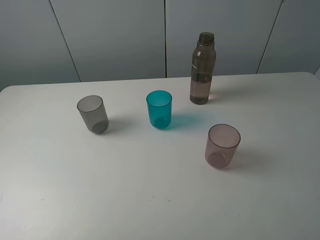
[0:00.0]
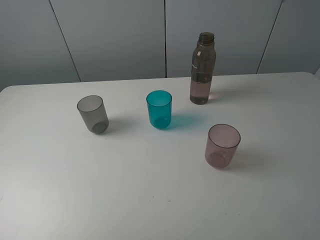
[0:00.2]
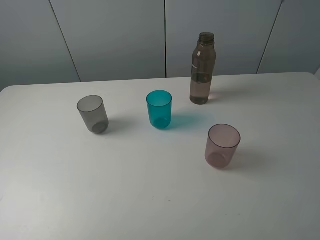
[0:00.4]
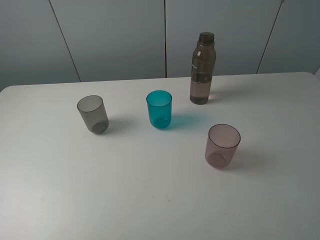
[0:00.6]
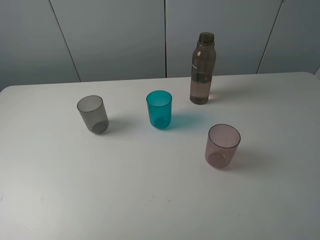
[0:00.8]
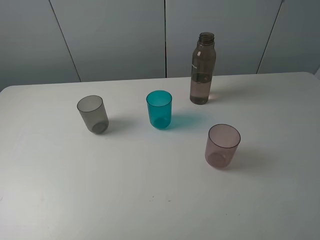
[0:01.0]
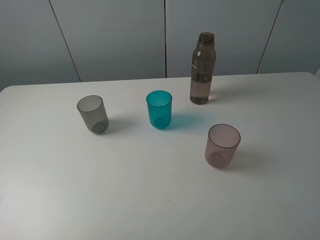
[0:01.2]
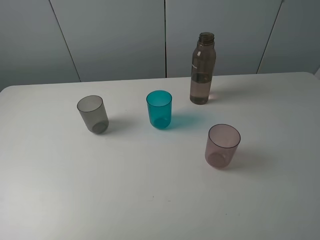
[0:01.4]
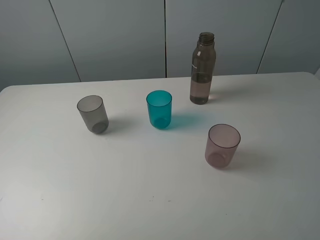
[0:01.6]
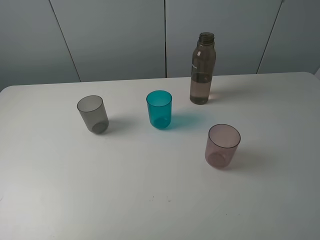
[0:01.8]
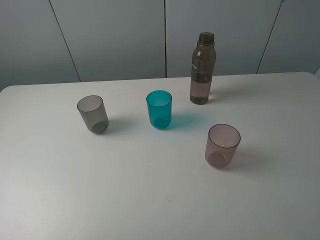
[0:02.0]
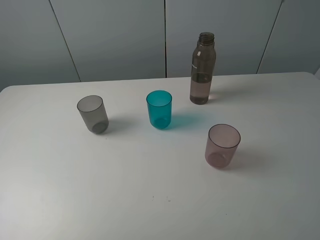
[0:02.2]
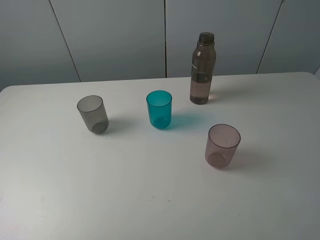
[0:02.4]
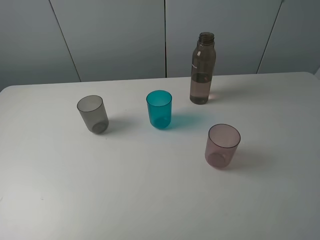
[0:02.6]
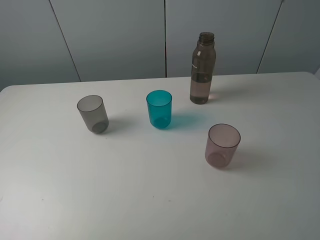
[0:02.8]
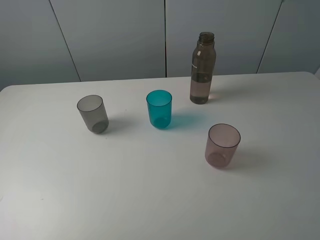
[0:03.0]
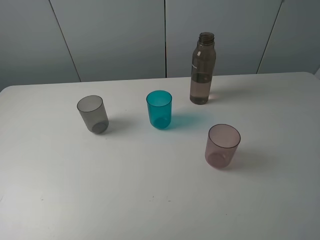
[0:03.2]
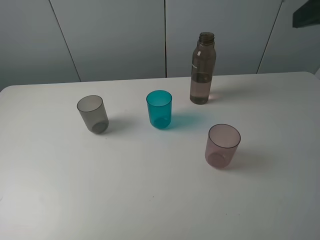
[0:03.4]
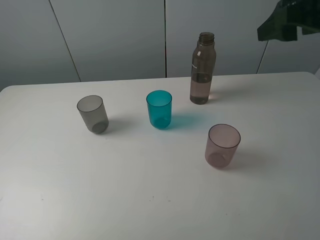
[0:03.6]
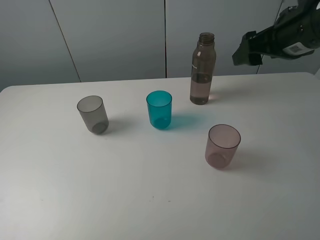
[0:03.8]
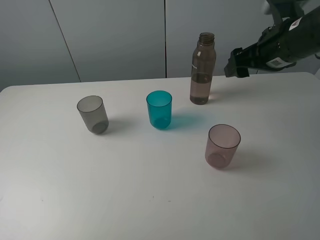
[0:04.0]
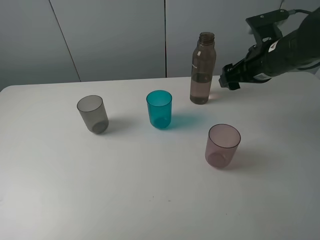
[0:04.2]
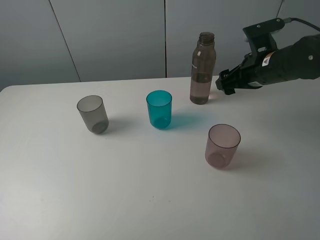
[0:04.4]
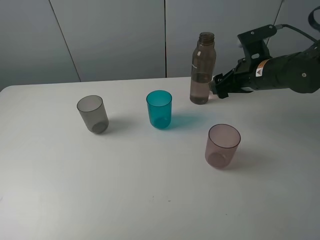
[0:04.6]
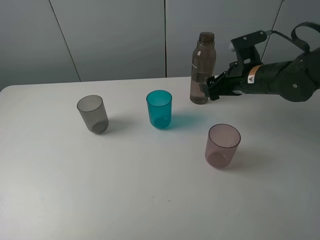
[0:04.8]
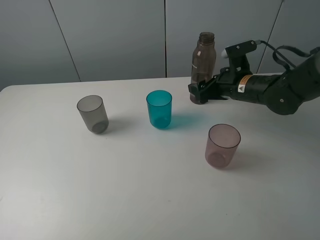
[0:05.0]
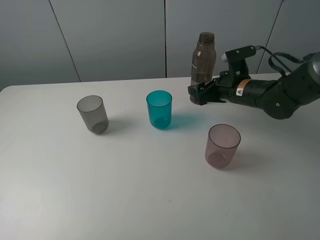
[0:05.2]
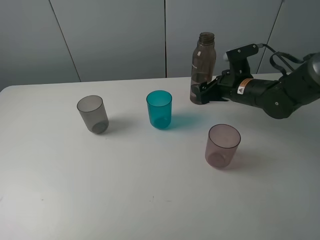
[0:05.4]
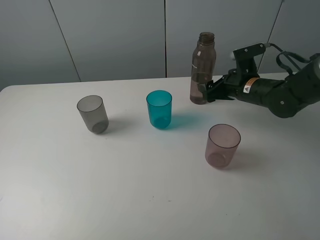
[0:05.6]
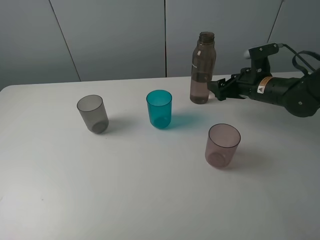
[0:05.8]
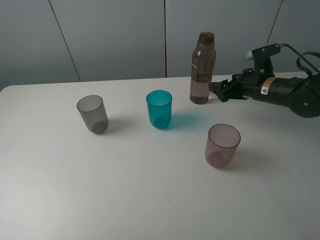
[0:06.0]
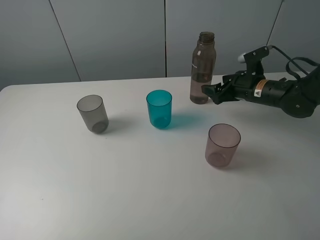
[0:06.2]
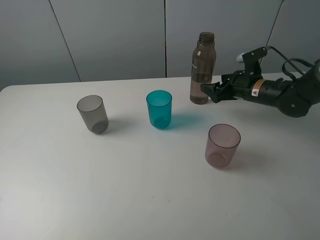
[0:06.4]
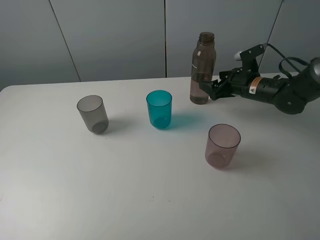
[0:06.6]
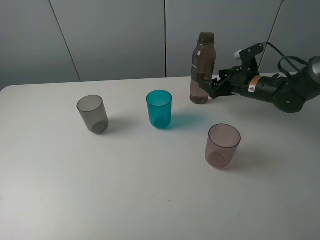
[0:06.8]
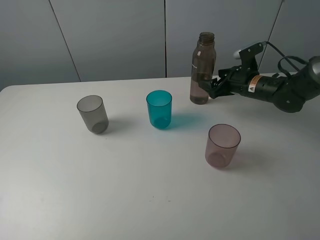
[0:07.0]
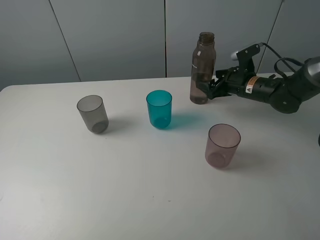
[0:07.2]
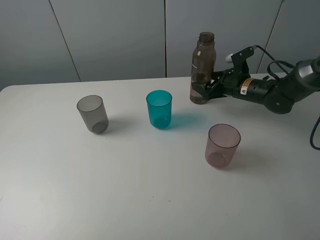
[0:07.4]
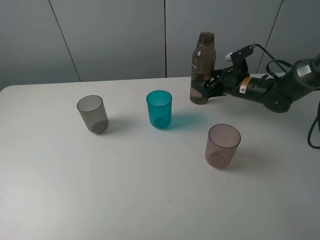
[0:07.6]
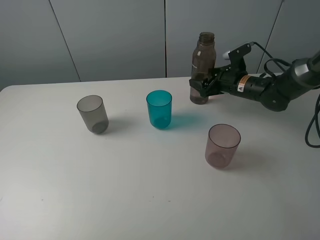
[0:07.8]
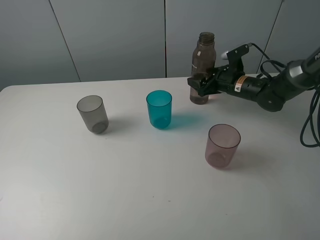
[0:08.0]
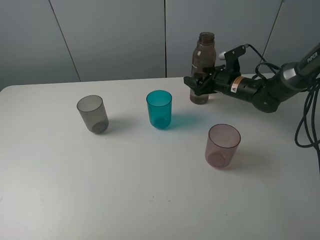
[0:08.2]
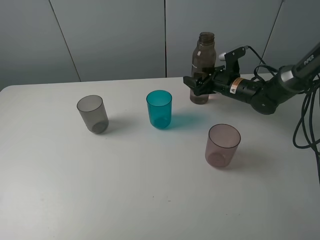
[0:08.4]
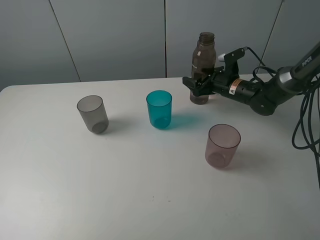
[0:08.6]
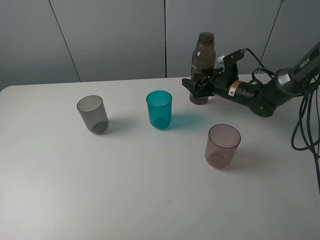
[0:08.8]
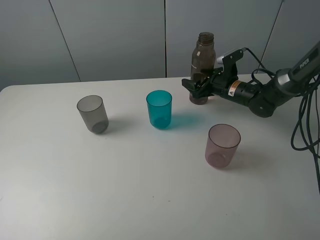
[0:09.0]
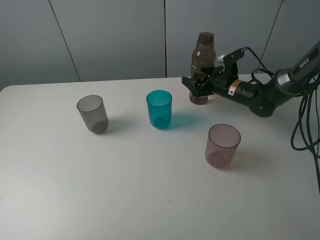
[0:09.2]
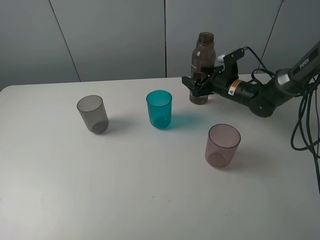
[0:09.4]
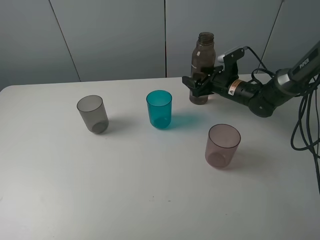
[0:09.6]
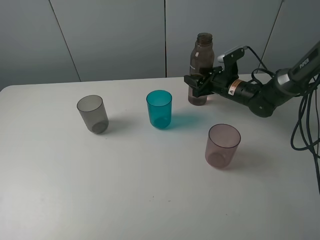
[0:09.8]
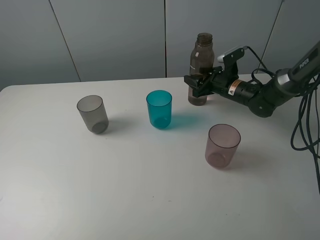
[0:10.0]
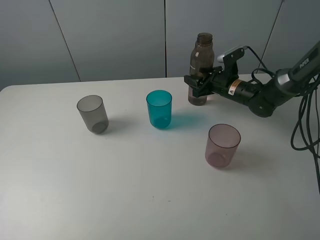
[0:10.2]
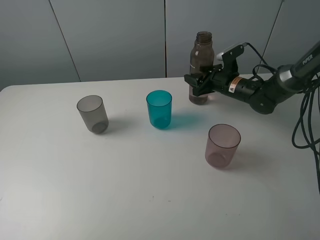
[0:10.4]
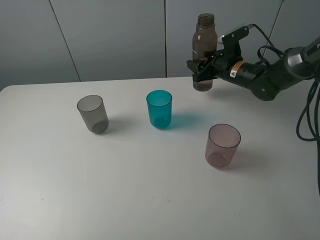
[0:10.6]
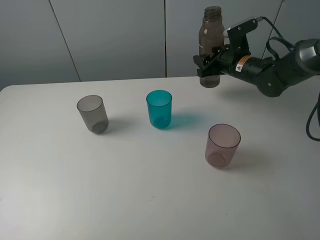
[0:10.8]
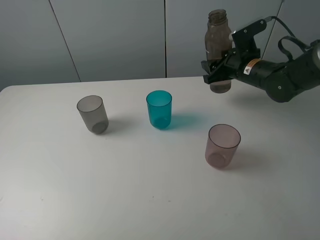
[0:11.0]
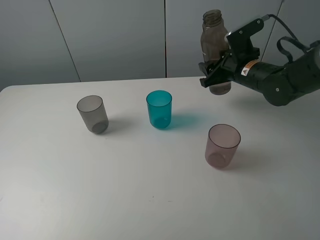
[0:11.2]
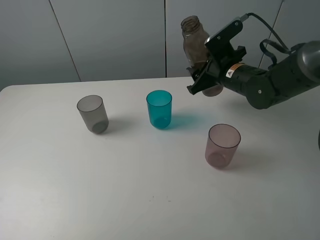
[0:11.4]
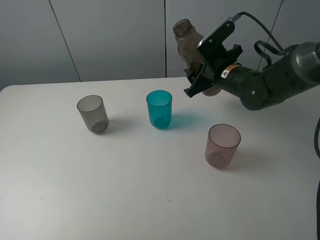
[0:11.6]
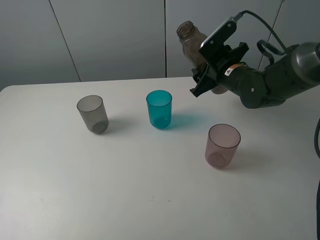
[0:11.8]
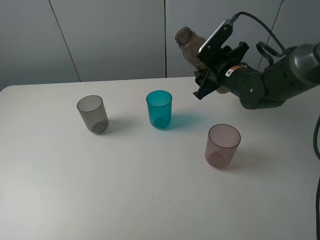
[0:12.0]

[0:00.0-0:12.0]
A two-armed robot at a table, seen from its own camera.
Task of the whole recording: pick up the bottle filled with water and pour water into the middle cup of the three cups.
Step, 0:00.0 to 0:10.0: Grasp the brown bottle with the right gripper.
0:00.0 to 0:01.6: Both grippers stay about where they are.
0:03.0 to 0:04.4: The right gripper goes some 30 cm forward and downward.
0:04.4 to 0:06.0: The right gripper heads downward, covering approximately 5 cm.
0:06.0 to 0:07.6: The right gripper heads forward, covering about 5 cm.
0:07.6 to 0:09.0: There are only small adjustments of the grippers.
0:09.0 to 0:10.4: The right gripper closes up.
0:10.4 to 0:12.0: The right gripper moves backward and upward, roughly 10 cm.

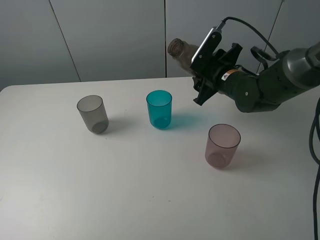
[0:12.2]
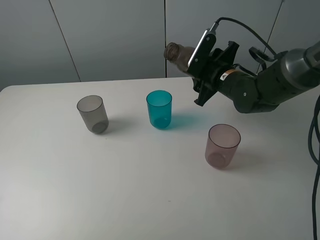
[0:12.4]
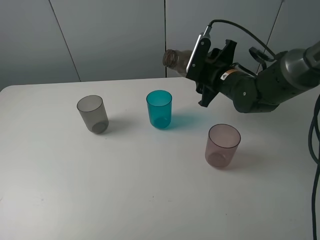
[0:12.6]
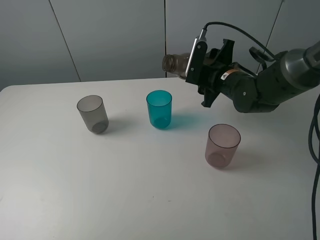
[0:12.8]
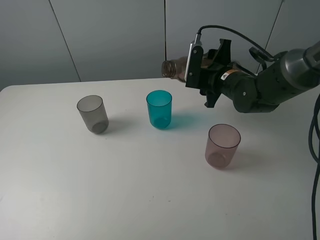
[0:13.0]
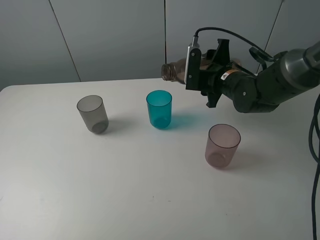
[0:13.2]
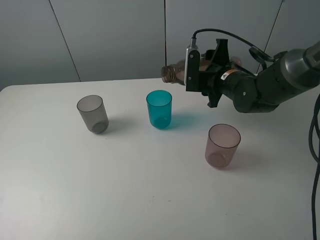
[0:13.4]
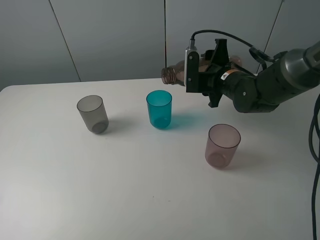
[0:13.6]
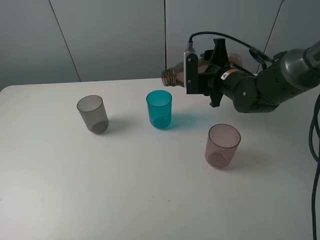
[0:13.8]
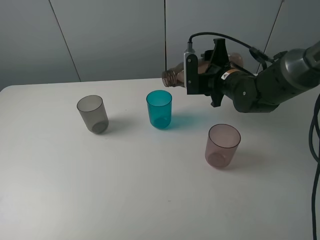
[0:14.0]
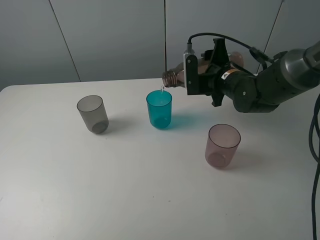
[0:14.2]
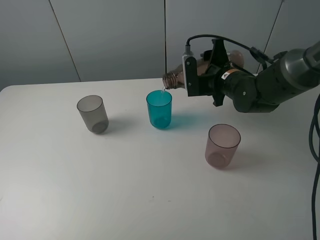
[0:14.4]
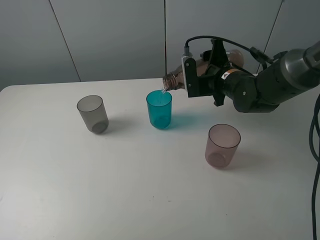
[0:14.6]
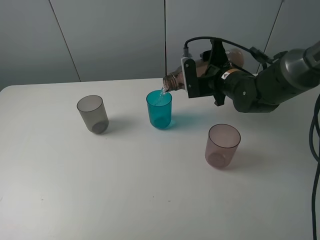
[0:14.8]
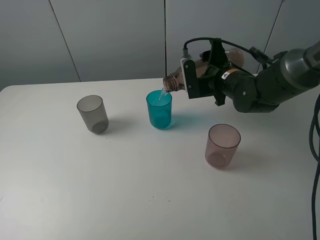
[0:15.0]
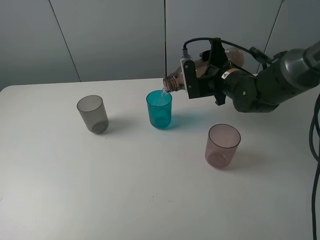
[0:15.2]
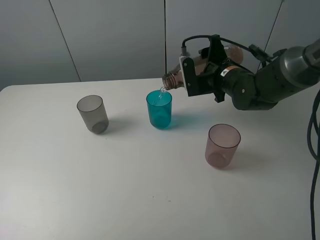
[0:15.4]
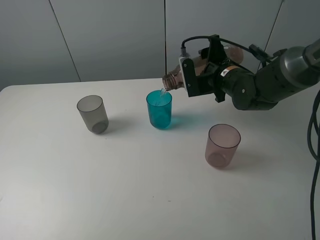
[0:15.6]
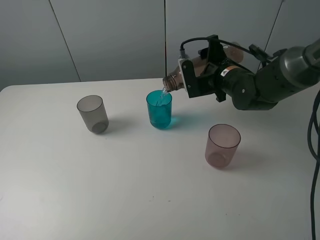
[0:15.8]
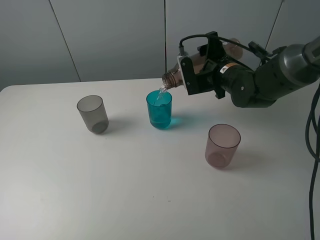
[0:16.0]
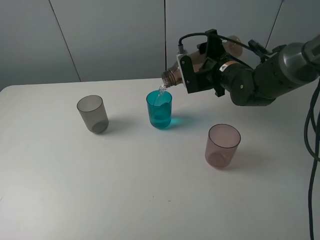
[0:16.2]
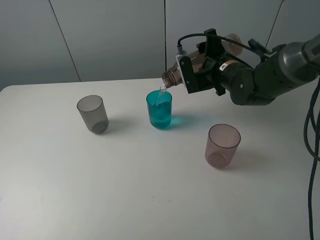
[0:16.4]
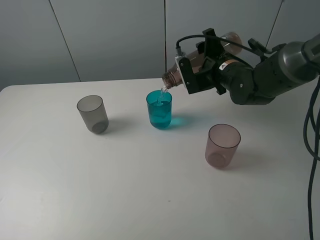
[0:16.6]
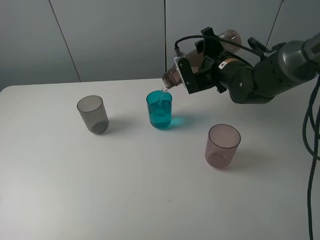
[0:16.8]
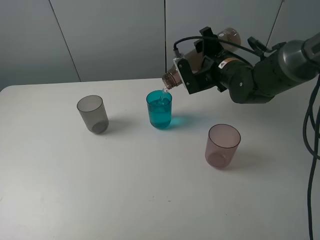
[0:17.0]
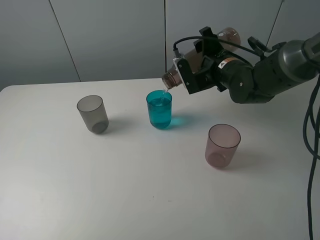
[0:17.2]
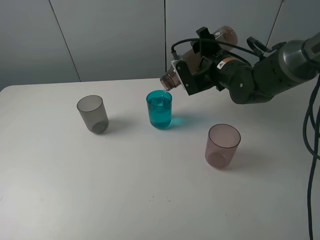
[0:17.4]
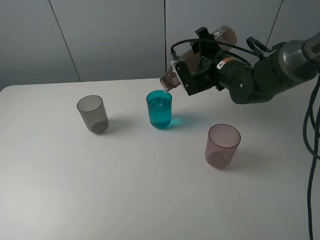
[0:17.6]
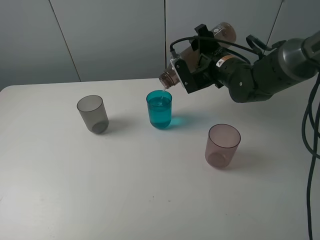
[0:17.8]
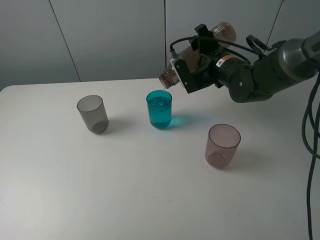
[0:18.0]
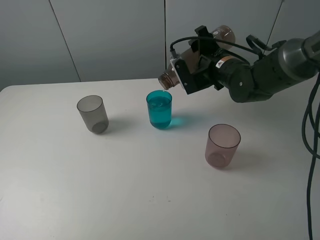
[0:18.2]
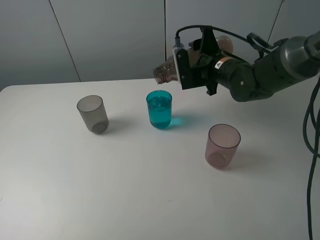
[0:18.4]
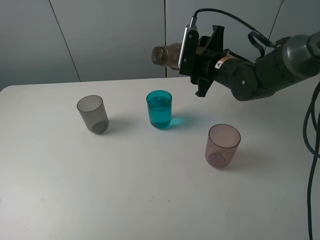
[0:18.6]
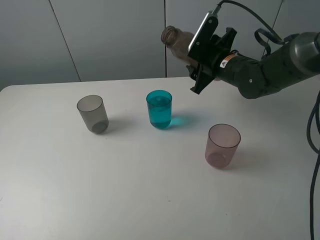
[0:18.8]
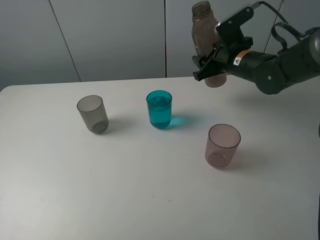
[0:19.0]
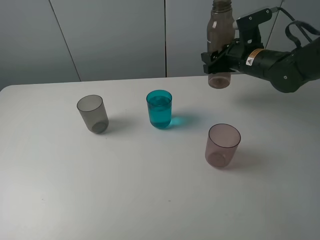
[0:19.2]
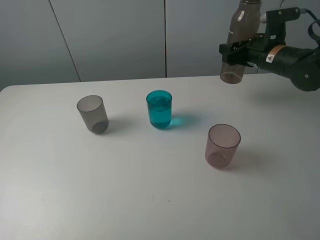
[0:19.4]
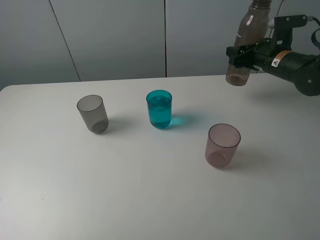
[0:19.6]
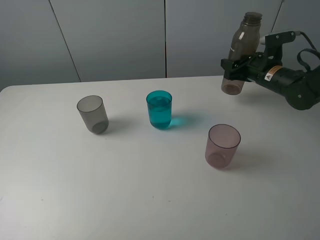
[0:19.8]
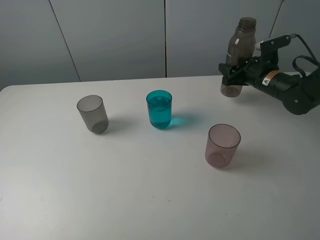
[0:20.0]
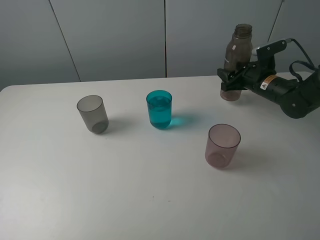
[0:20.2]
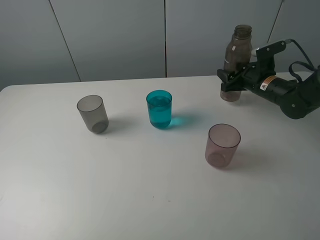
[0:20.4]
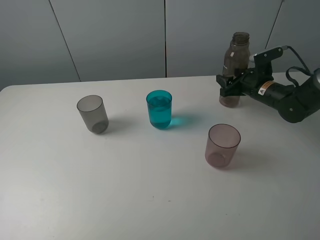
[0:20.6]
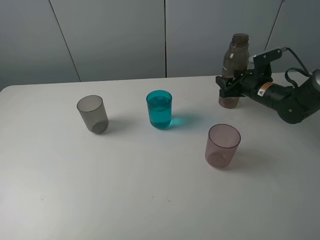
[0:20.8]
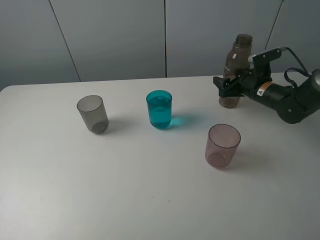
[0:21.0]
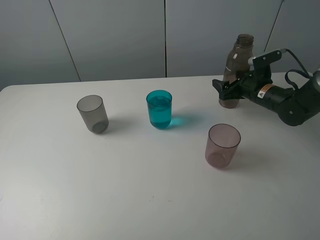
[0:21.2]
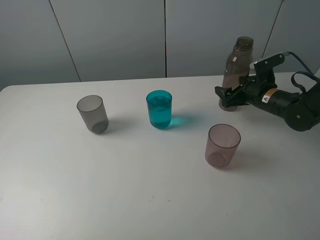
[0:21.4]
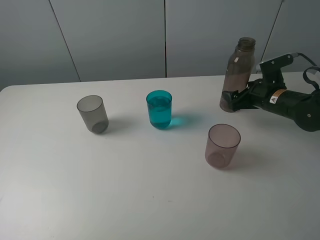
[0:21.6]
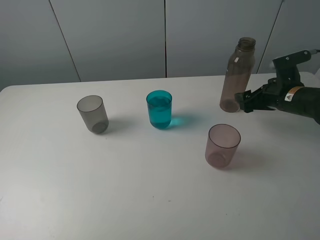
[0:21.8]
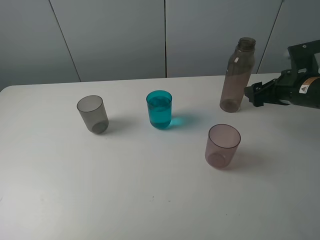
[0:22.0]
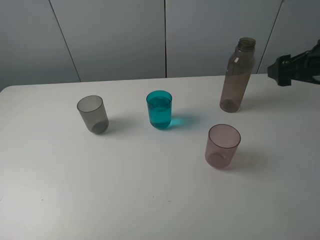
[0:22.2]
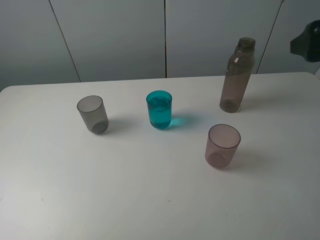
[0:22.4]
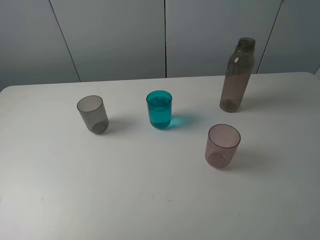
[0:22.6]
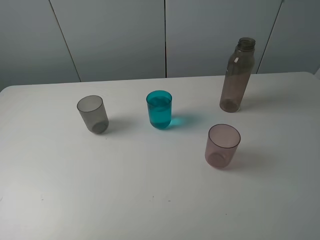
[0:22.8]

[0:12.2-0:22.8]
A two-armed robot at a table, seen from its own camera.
Task of the whole recording: pick up the bottle filled with water and pour water into the middle cup of the three cups.
Step, 0:12.2 to 0:18.8: Pour water from brown bottle to blue cup with the right gripper.
Step, 0:19.0 to 0:22.0: Place the brown bottle with the right gripper.
0:13.8 to 0:15.2: The grippers move only a little.
0:15.2 to 0:18.2: The grippers make only small movements.
0:18.2 to 0:19.8: The right gripper shifts approximately 15 cm to the right.
0:19.8 to 0:21.2: The right gripper opens.
0:21.2 to 0:22.8: The right gripper heads backward and upward, covering approximately 40 cm.
